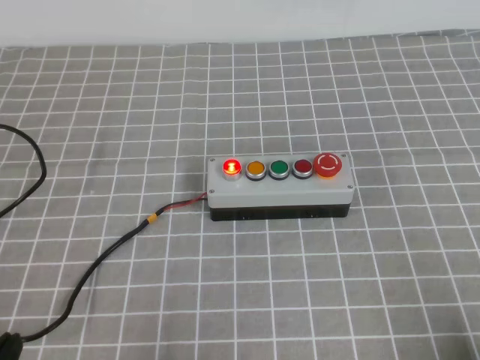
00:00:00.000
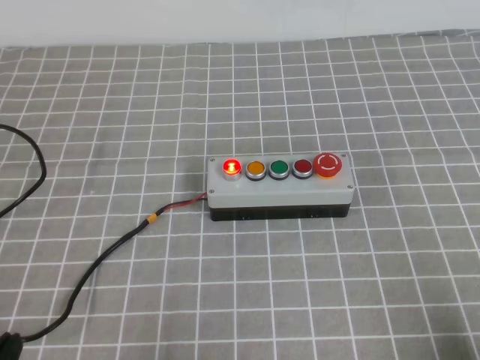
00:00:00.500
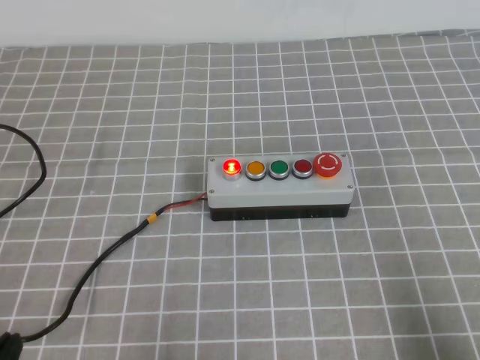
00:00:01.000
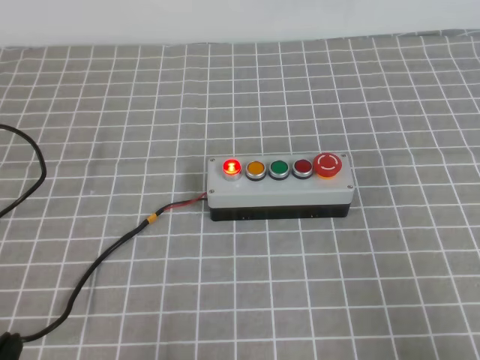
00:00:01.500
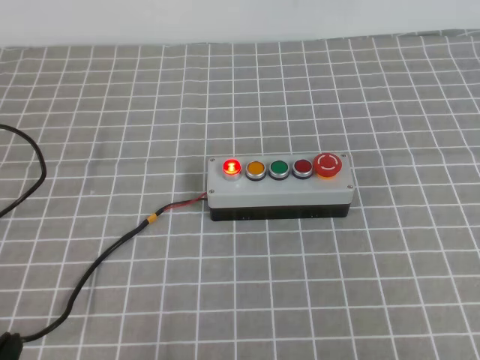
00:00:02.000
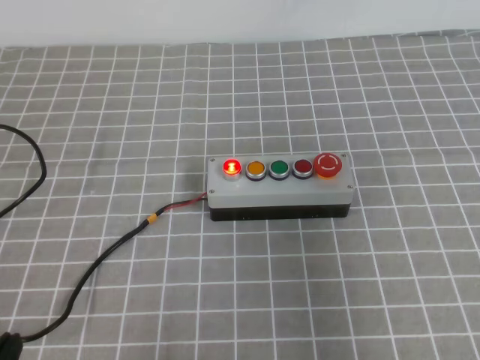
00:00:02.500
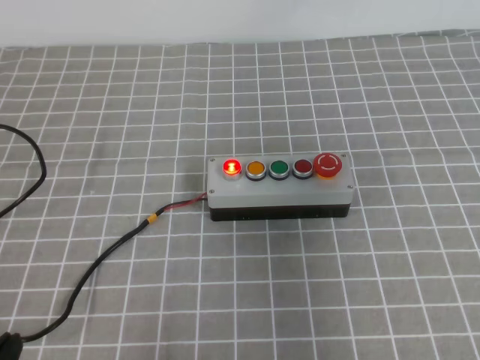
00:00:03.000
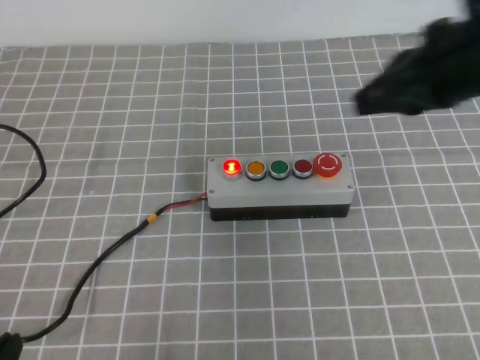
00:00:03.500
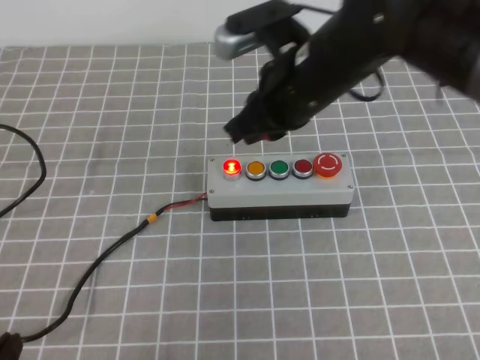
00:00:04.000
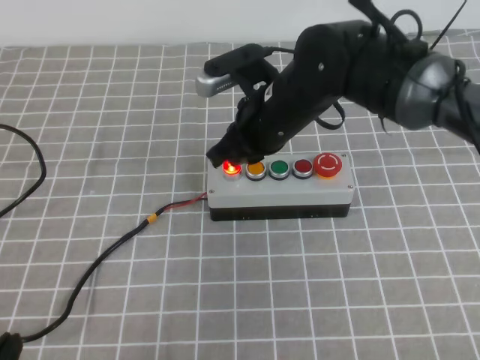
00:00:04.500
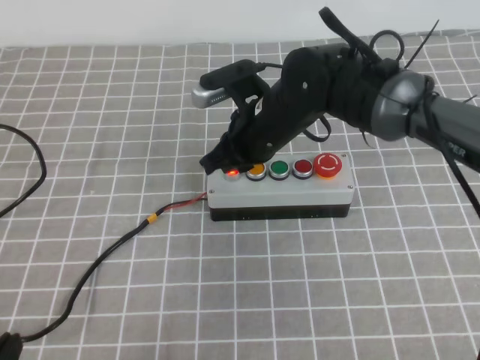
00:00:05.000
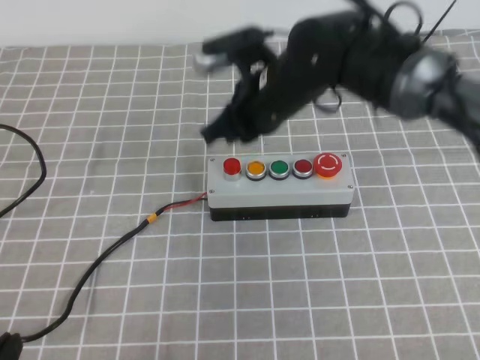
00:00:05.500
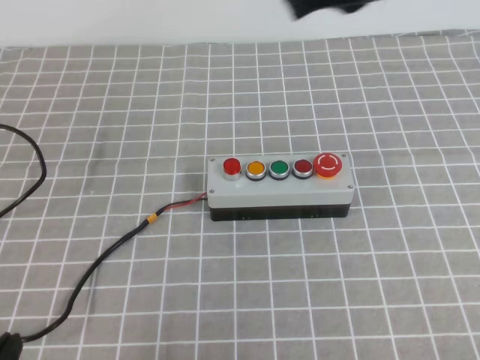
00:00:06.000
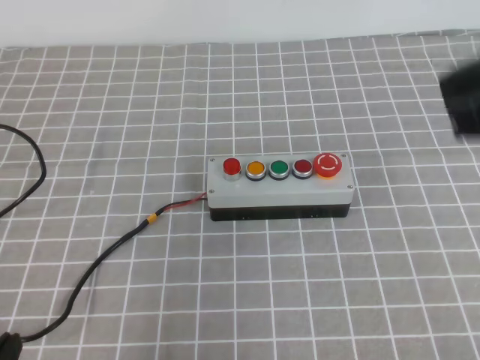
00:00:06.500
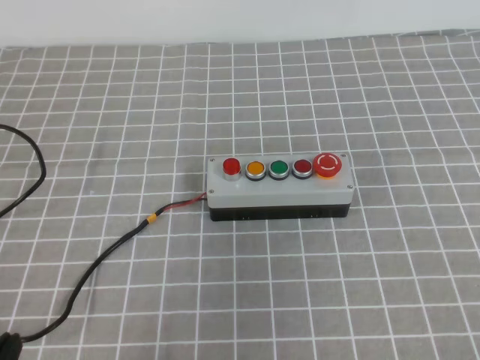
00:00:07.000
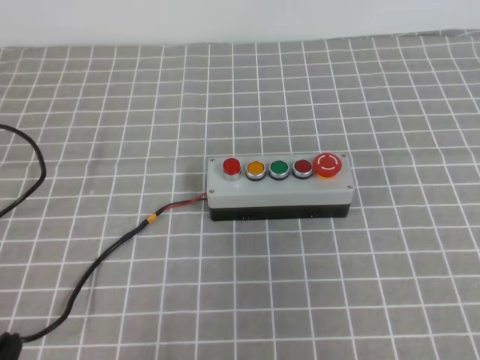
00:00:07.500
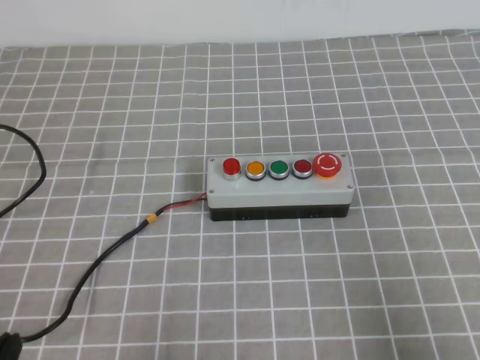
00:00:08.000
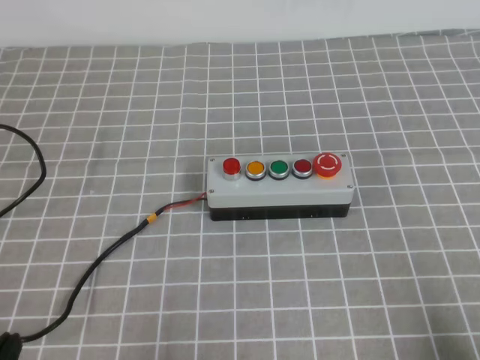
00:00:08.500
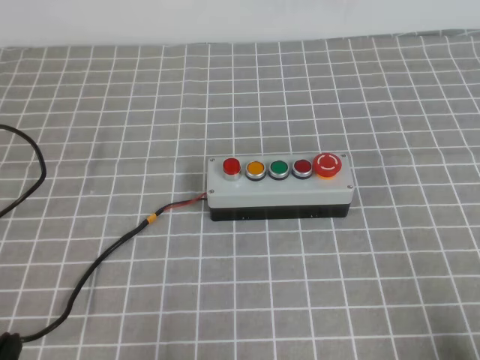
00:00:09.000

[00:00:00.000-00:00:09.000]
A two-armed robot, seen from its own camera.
Task of the whole recording: press the button switch on the grey tablecloth with the right gripper to turn off the button.
Step, 00:00:00.000 to 00:00:09.000: Press the button to turn off.
00:00:00.000 to 00:00:02.000: The right gripper travels upward by about 20 cm.
00:00:02.000 to 00:00:04.500: The right gripper is displaced forward and to the left by approximately 50 cm.
00:00:04.500 to 00:00:07.000: The right gripper is displaced backward, to the right and upward by about 35 cm.
00:00:07.000 to 00:00:09.000: The right gripper is displaced downward by roughly 20 cm.

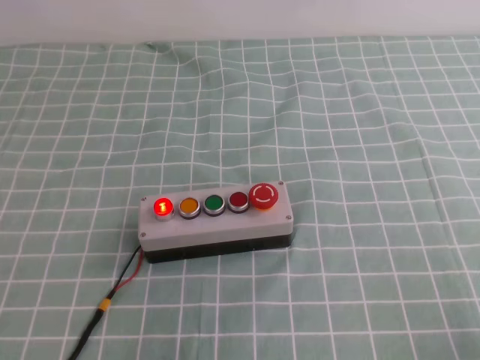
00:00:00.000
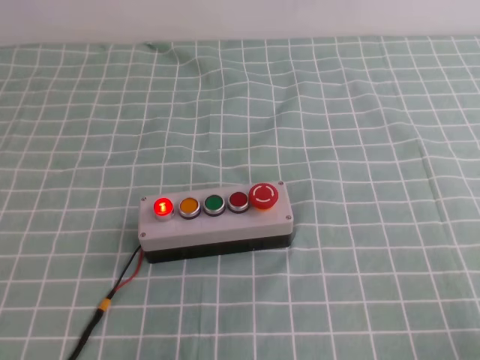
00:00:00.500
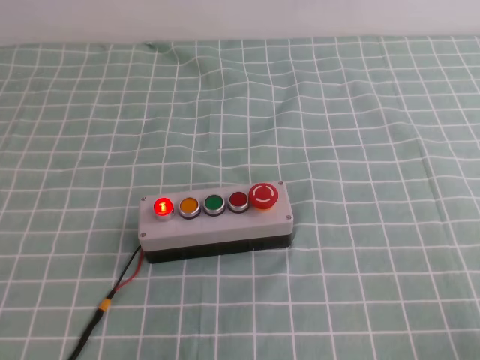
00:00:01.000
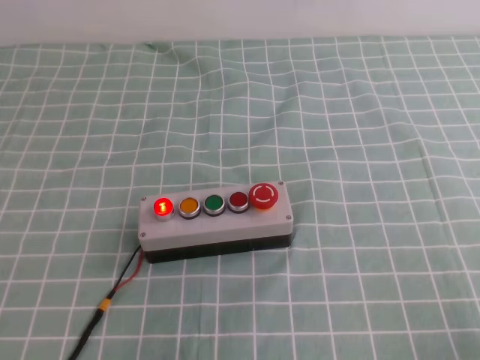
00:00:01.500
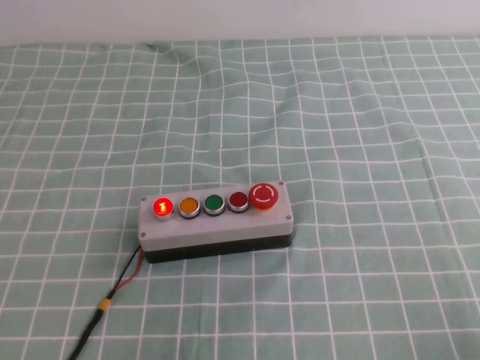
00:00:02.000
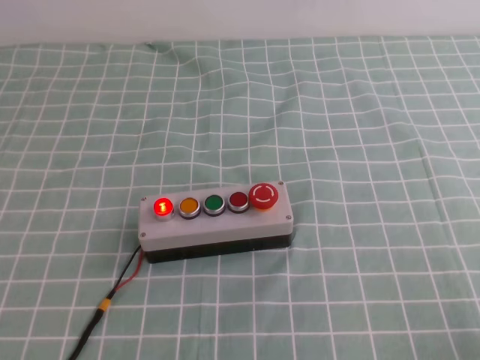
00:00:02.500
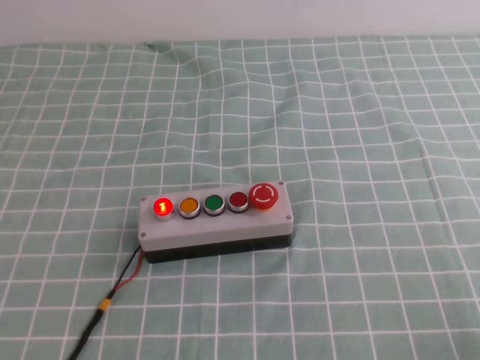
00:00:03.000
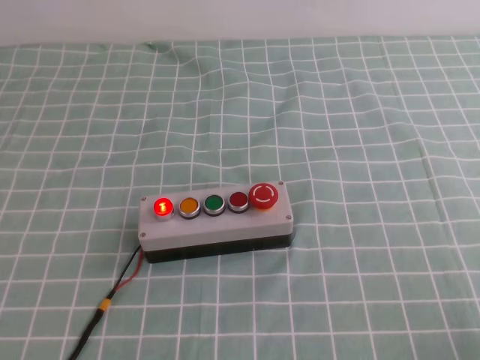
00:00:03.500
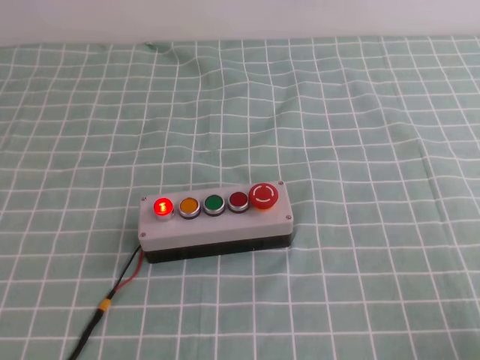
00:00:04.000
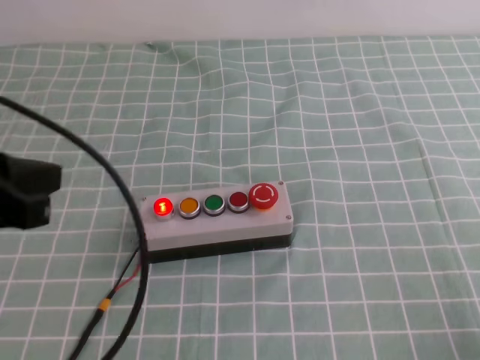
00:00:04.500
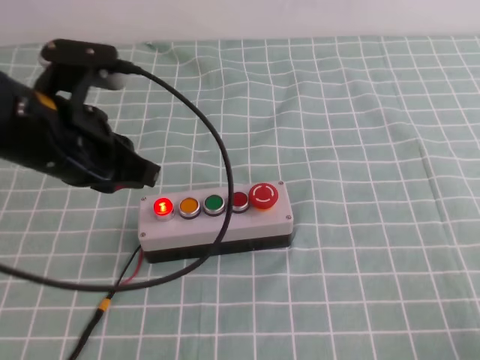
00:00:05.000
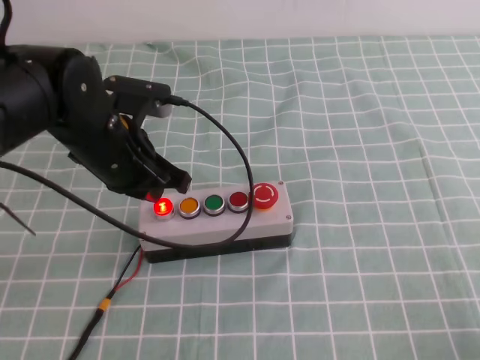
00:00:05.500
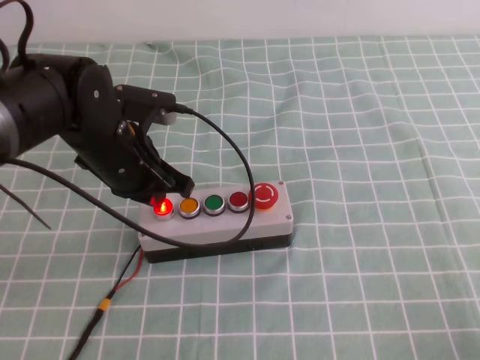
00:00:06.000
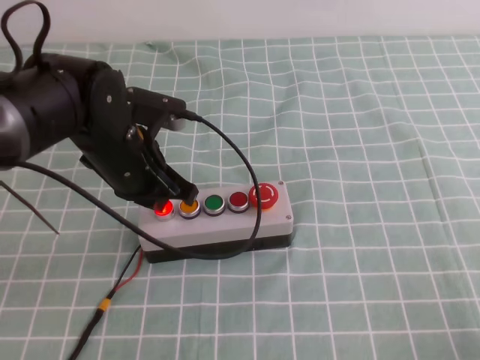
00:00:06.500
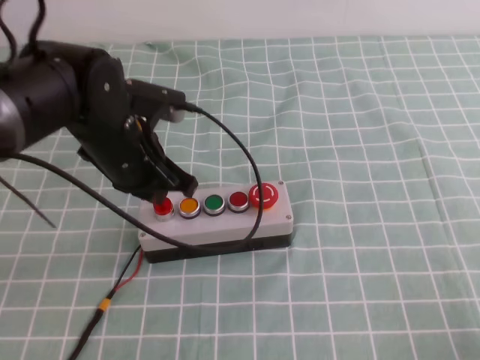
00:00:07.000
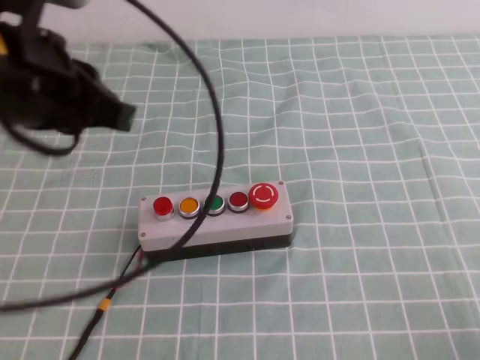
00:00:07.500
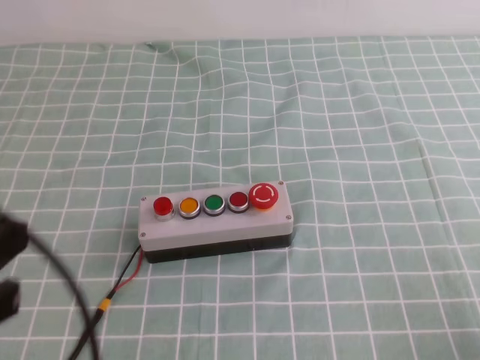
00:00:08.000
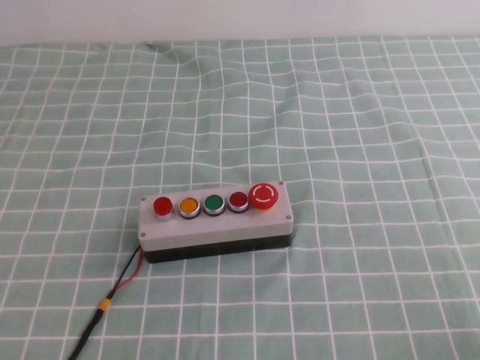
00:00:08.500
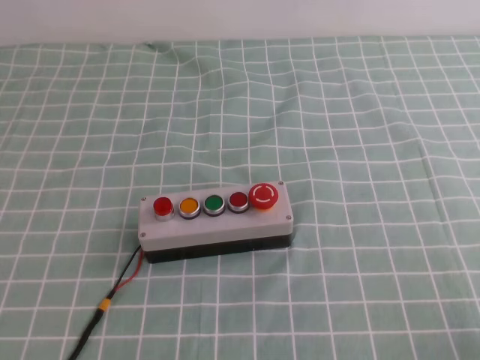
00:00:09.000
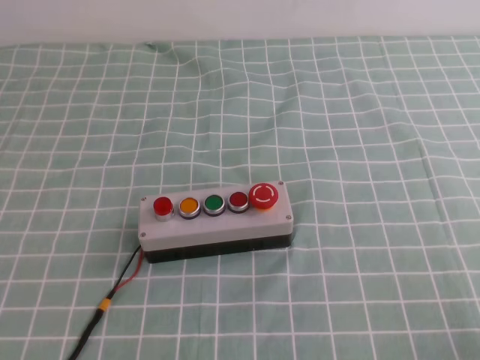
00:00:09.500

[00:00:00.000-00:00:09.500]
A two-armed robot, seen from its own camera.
Task of the whole recording: press the button switch on the cyan tablecloth with the left gripper to turn off the button.
00:00:04.000 to 00:00:05.500: The left gripper shifts about 30 cm forward and to the right.
00:00:05.500 to 00:00:07.500: The left gripper moves upward, approximately 10 cm.
00:00:07.500 to 00:00:09.500: The left gripper travels backward, to the left and downward by about 25 cm.

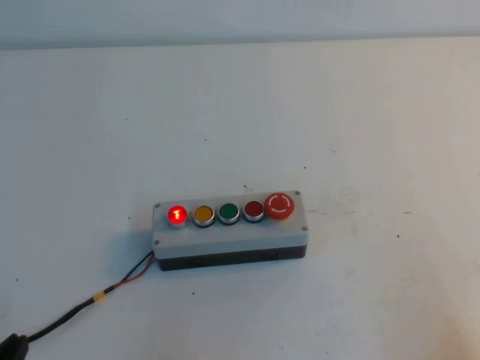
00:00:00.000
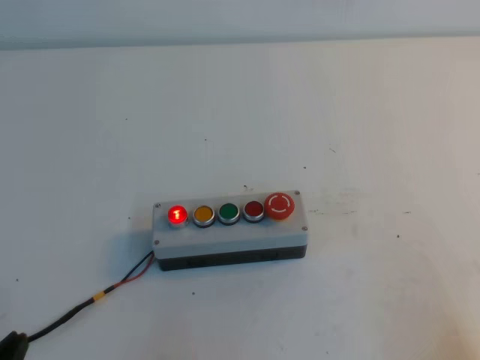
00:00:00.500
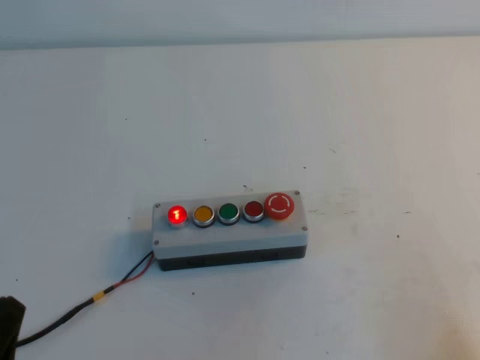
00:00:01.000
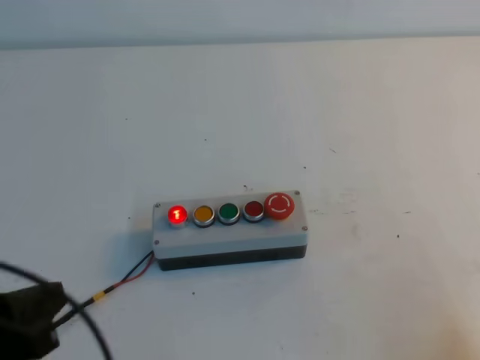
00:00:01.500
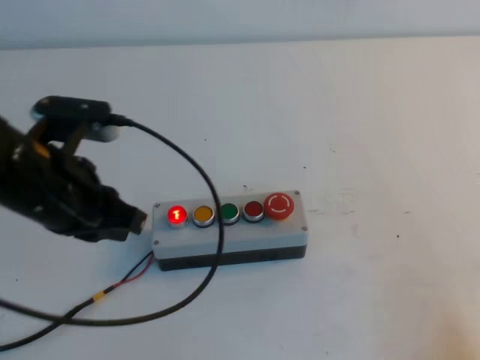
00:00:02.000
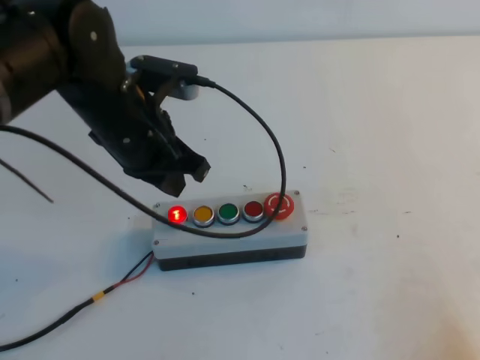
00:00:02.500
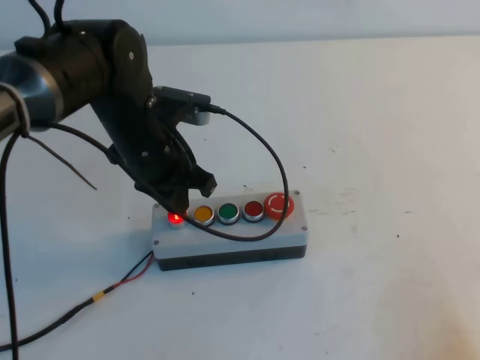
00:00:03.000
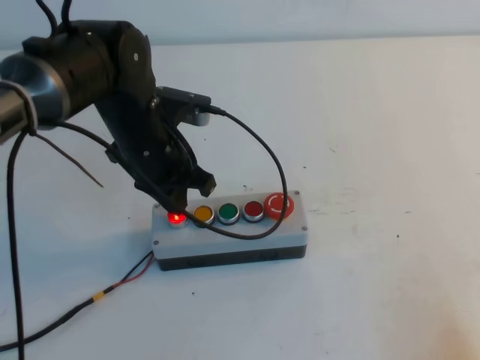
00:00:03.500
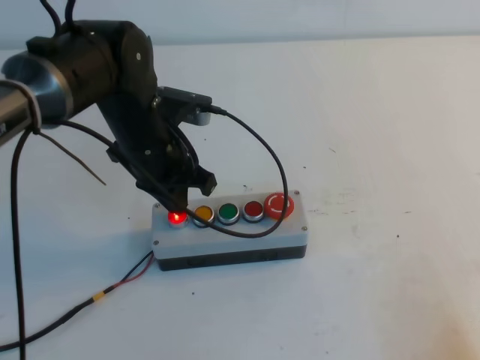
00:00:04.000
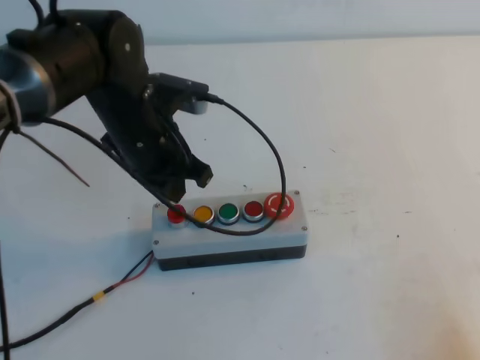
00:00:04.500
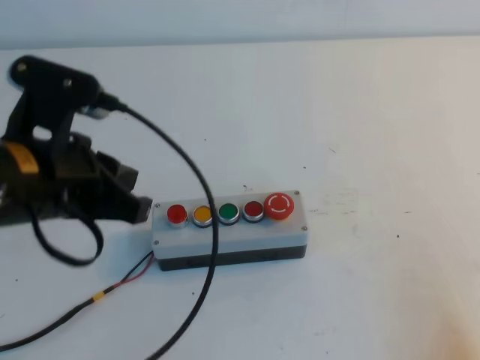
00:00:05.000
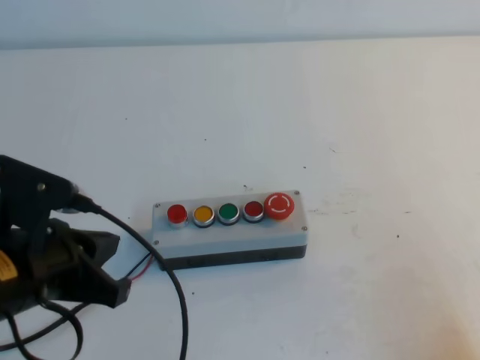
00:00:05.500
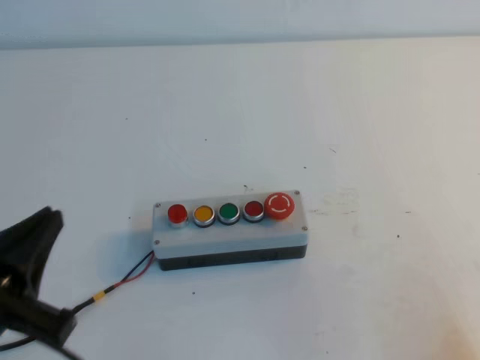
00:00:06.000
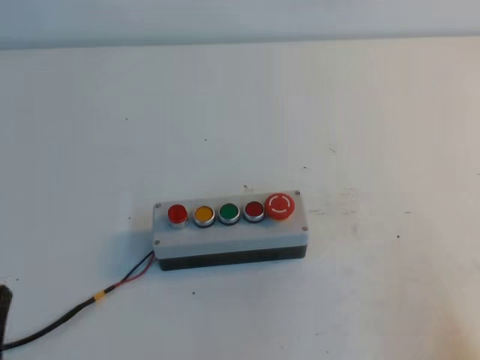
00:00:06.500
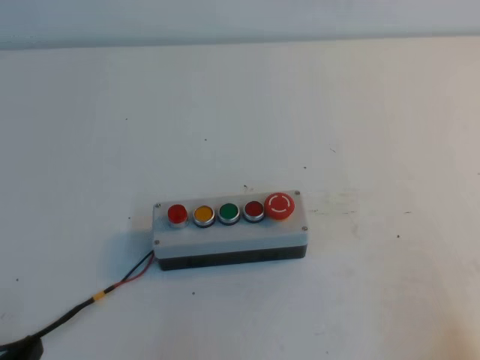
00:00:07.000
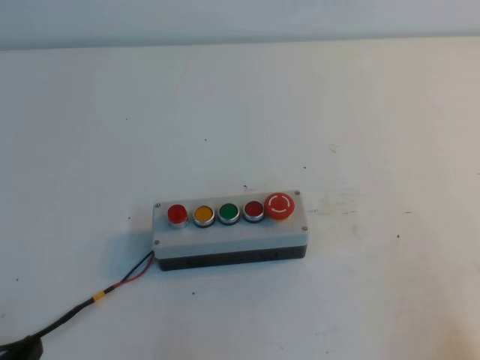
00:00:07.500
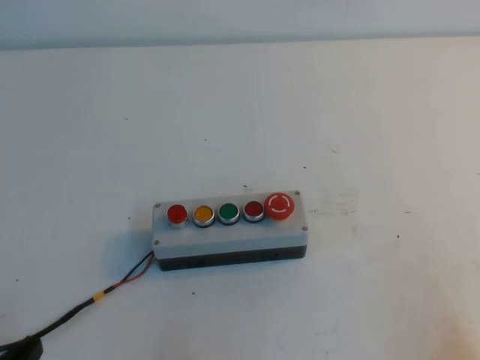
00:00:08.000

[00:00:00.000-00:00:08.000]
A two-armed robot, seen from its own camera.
Task of the whole recording: press the button switch with the left gripper to turn off the button.
Step, 00:00:00.000 to 00:00:08.000: Press the button to turn off.
00:00:00.000 to 00:00:02.000: The left gripper travels forward, upward and to the right by about 25 cm.
00:00:02.000 to 00:00:04.000: The left gripper travels forward, to the right and downward by roughly 15 cm.
00:00:04.000 to 00:00:06.000: The left gripper is displaced backward and to the left by approximately 25 cm.
00:00:06.000 to 00:00:08.000: The left gripper shifts approximately 10 cm downward and backward.
